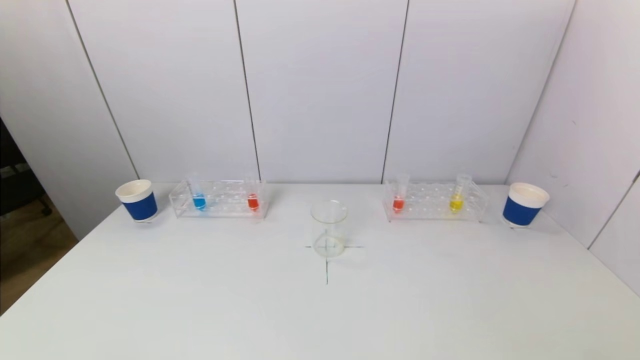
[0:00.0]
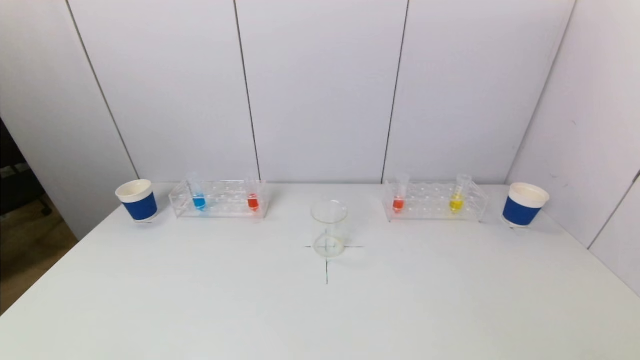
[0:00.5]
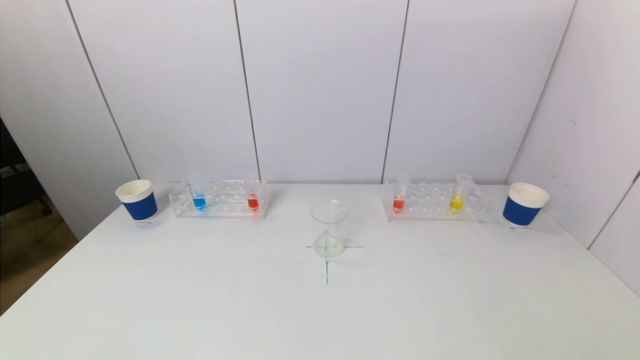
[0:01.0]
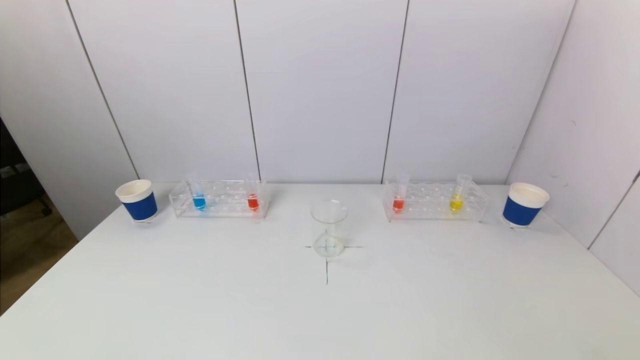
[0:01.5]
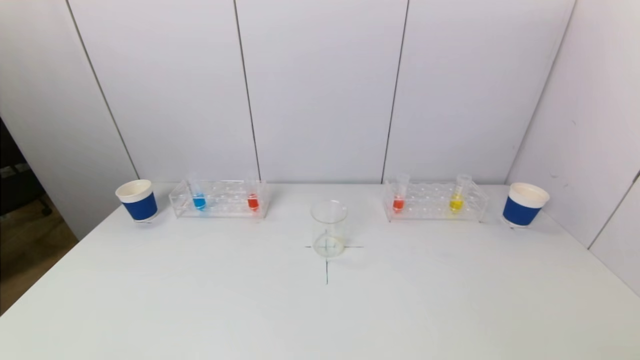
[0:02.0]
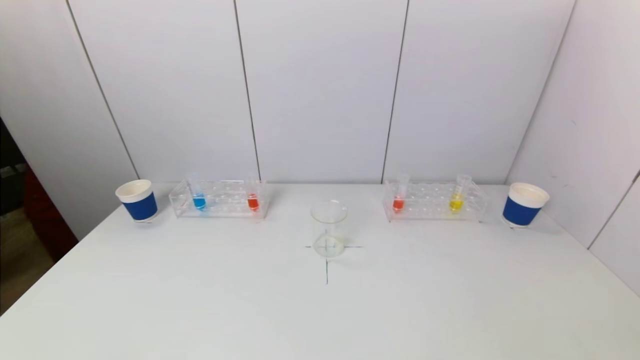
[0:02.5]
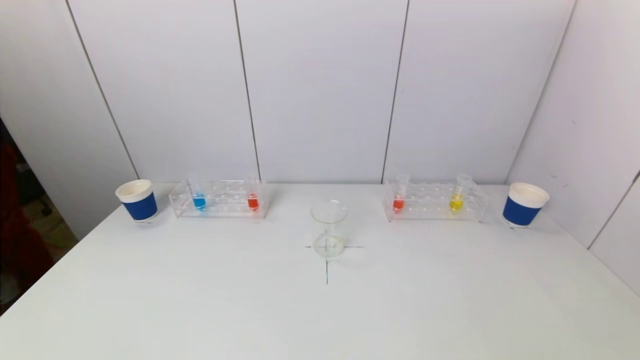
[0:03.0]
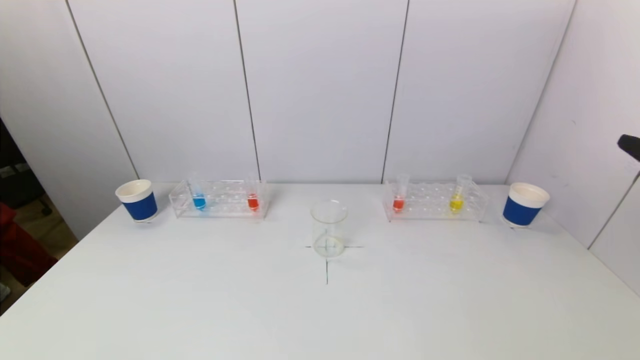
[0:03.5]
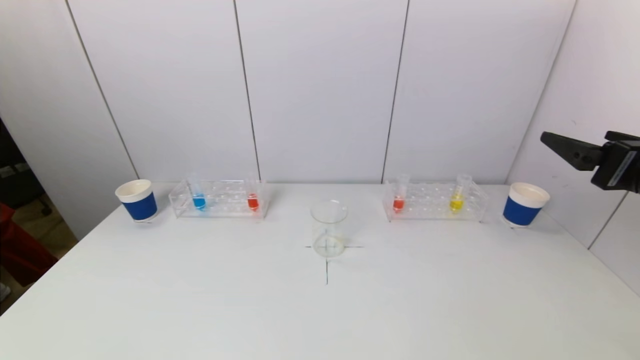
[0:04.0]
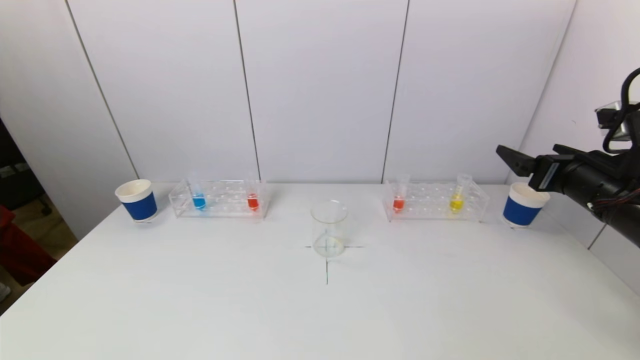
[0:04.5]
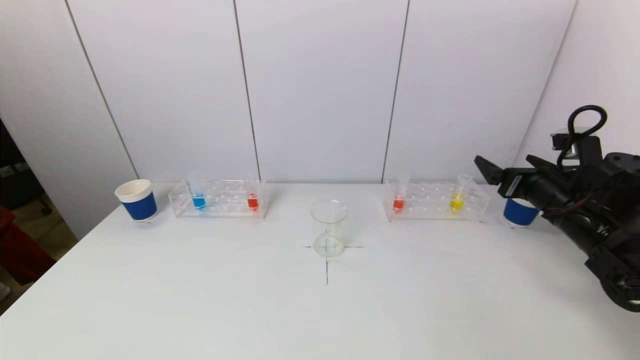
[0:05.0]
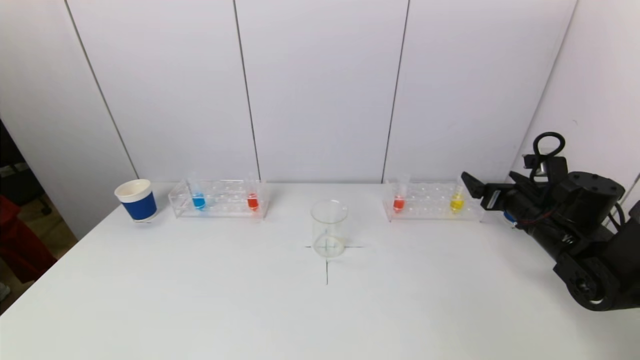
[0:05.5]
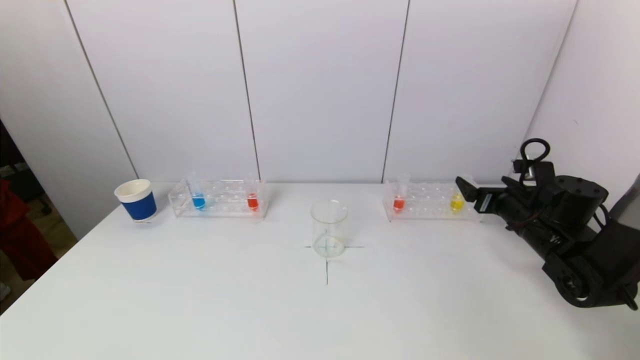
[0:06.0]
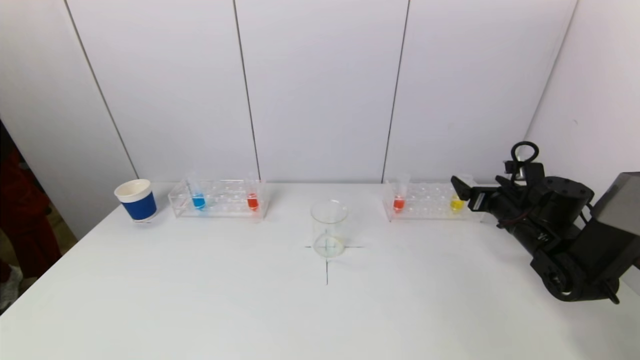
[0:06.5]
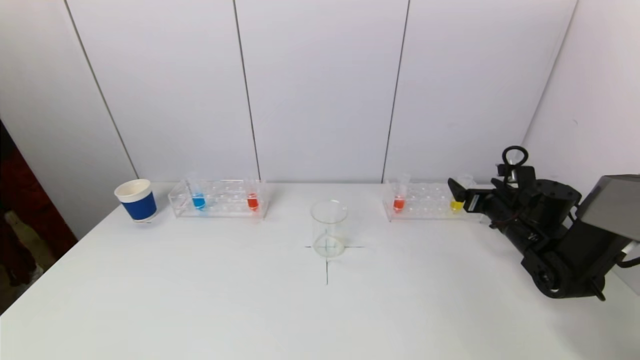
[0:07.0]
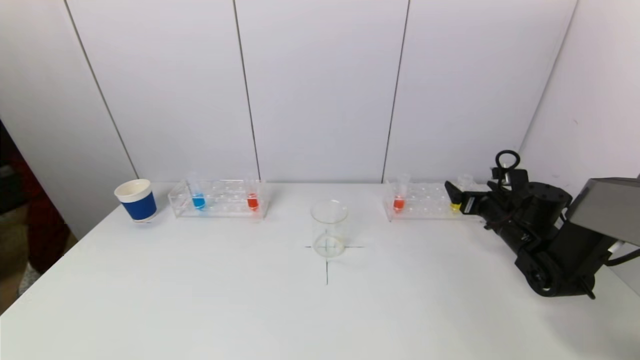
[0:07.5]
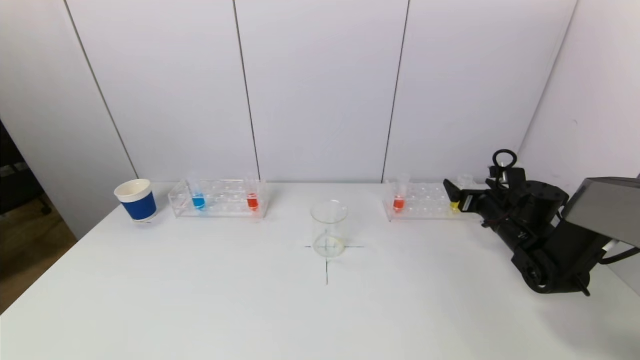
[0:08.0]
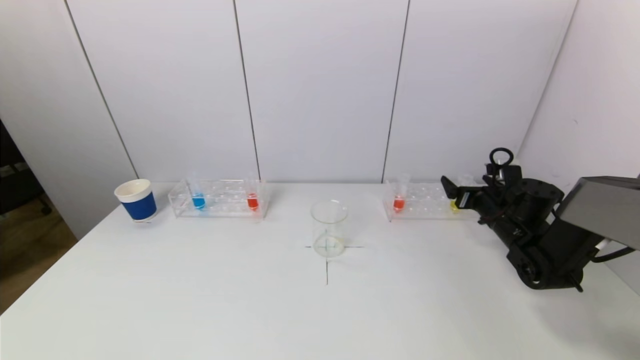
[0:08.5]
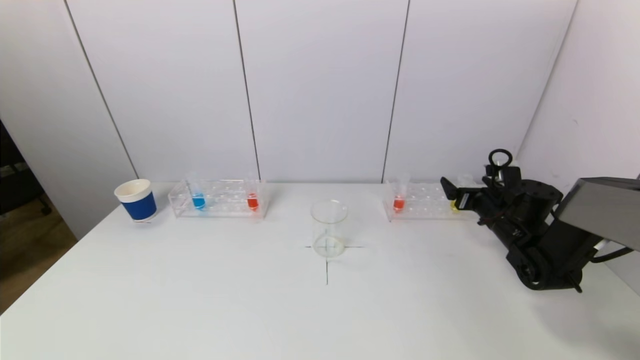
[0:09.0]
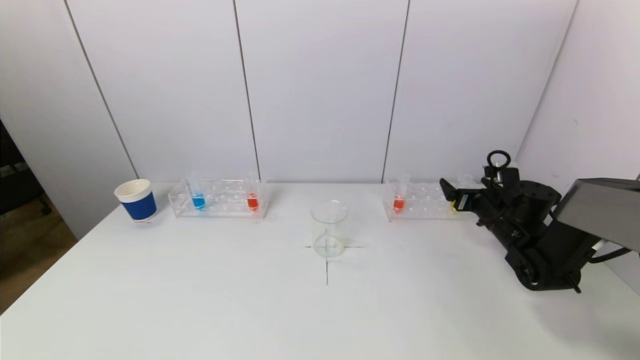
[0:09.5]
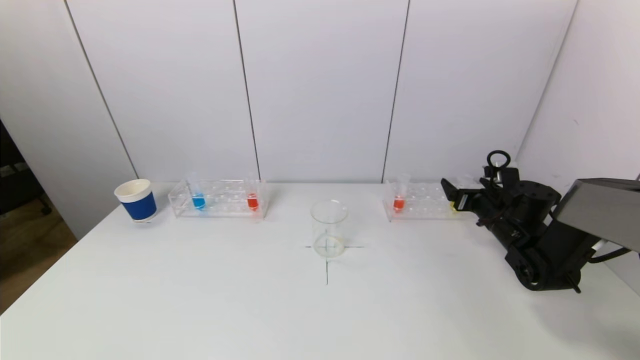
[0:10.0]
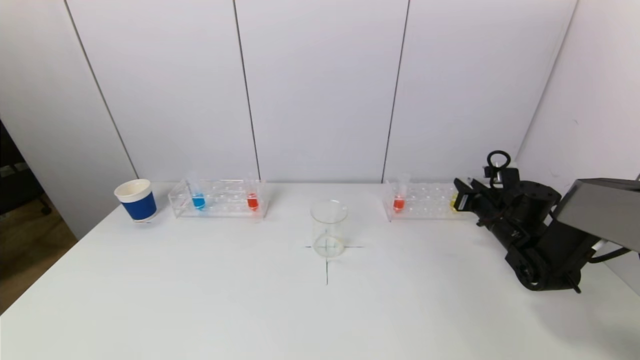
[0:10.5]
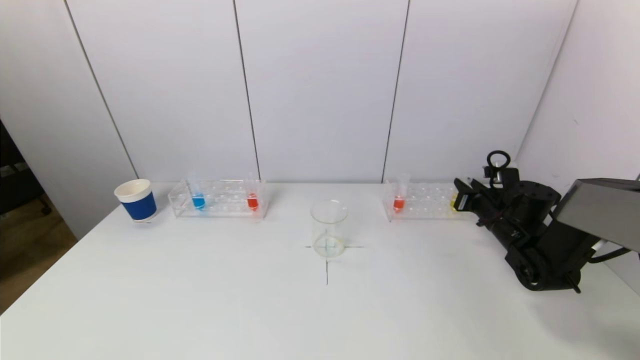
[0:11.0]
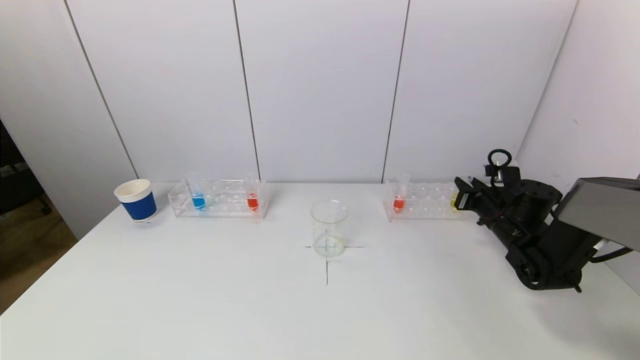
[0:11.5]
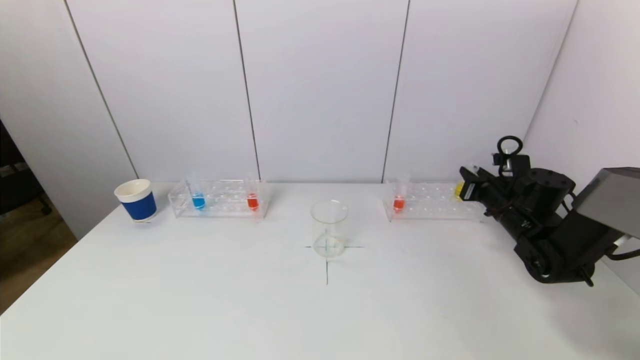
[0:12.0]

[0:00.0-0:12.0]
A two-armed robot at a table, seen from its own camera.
Task of the whole recording: pick up a test tube with pigment on left test tube rack and a test tube with pigment on right test tube rack by grippers and pour them into the beaker.
Step, 0:00.0 to 0:10.5: Grasp the yellow reagent with the right gripper.
0:02.0 to 0:04.0: The right gripper travels forward and upward by about 30 cm.
0:04.0 to 0:06.0: The right gripper heads downward and forward, covering approximately 20 cm.
0:06.0 to 0:08.0: The right gripper moves approximately 5 cm.
0:08.0 to 0:10.0: Both grippers stay about where they are.
0:10.0 to 0:12.0: The right gripper closes up.

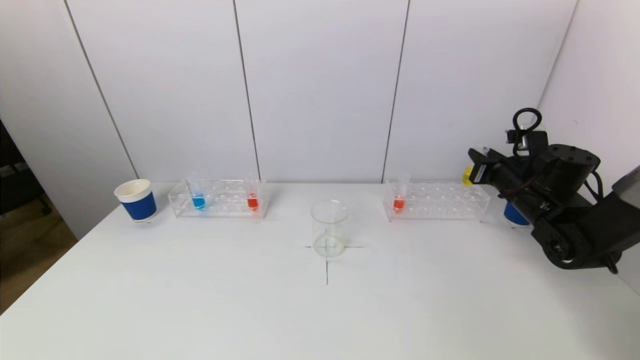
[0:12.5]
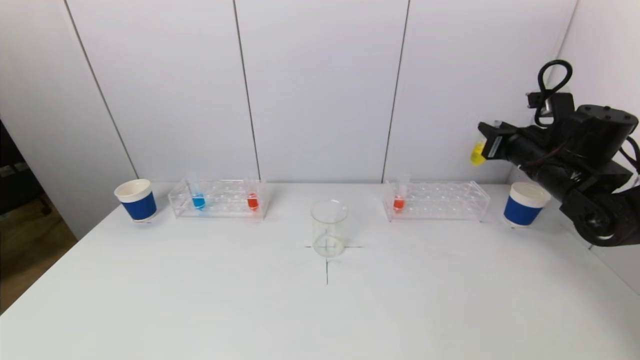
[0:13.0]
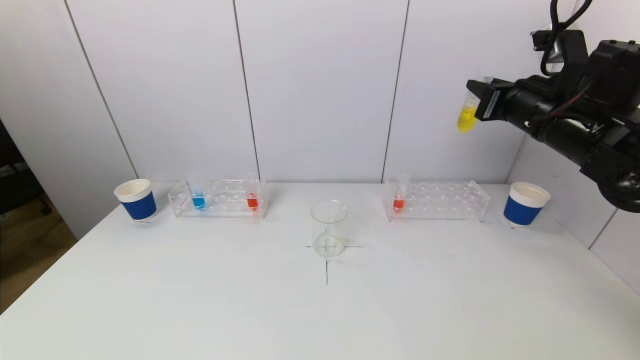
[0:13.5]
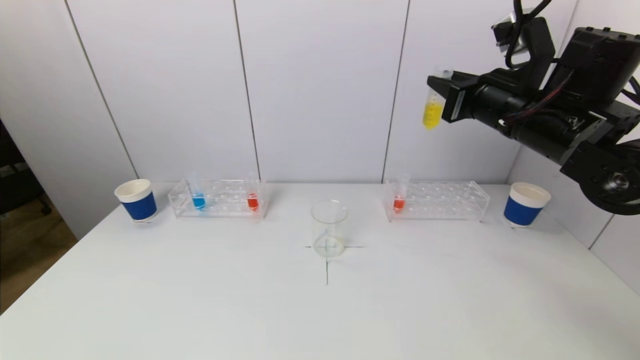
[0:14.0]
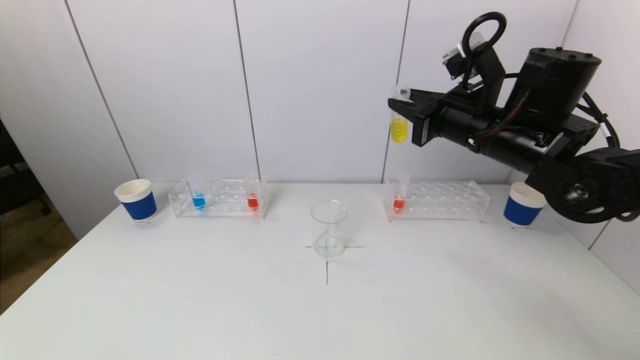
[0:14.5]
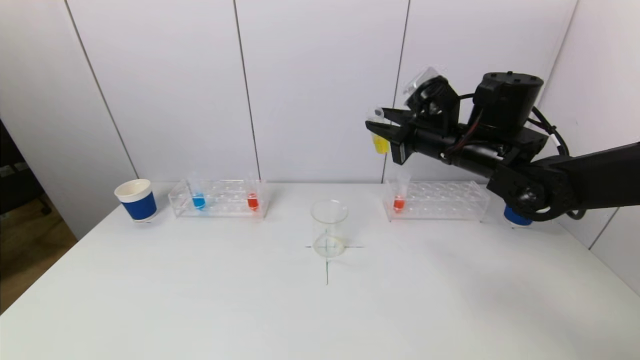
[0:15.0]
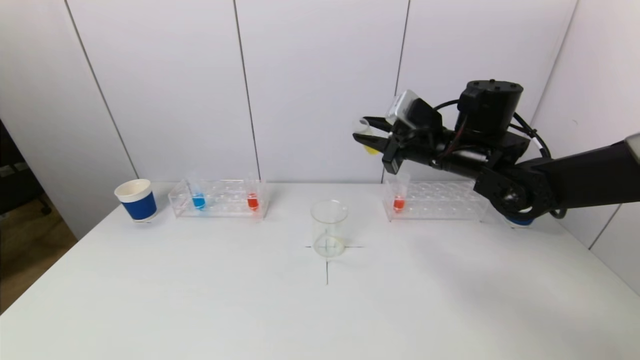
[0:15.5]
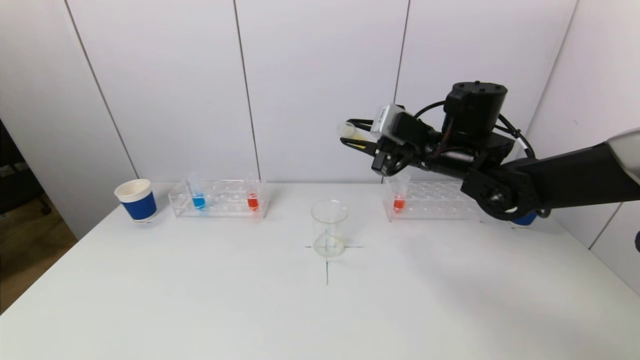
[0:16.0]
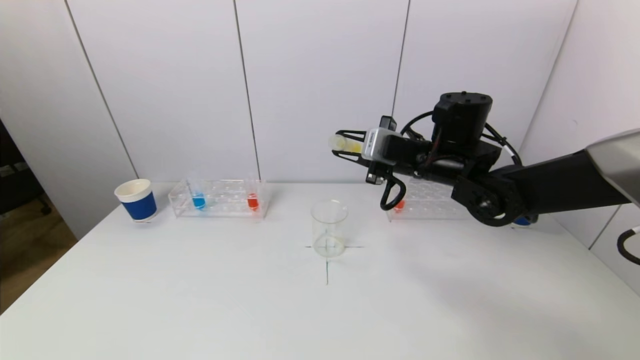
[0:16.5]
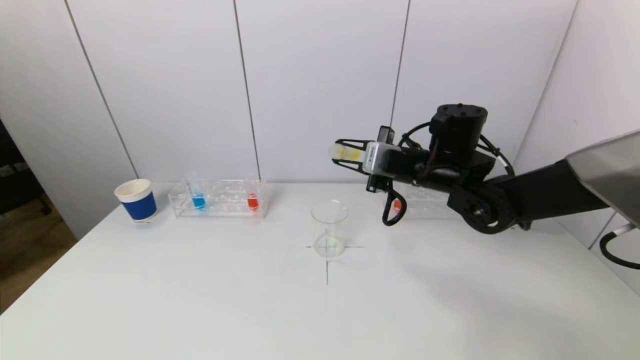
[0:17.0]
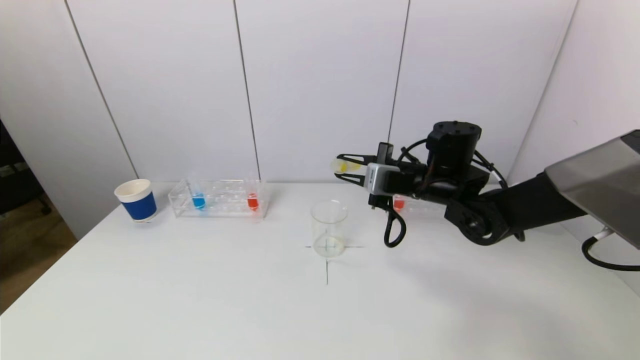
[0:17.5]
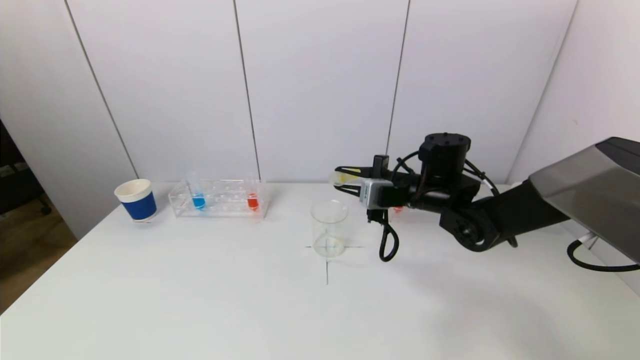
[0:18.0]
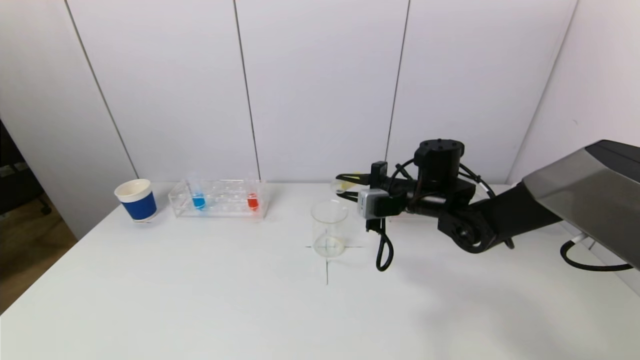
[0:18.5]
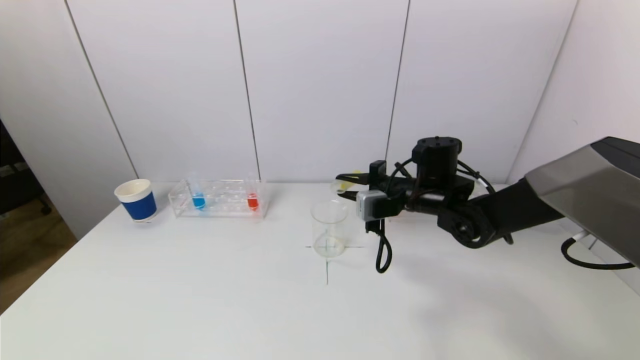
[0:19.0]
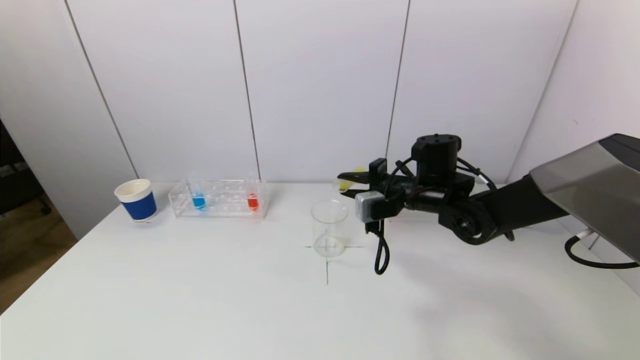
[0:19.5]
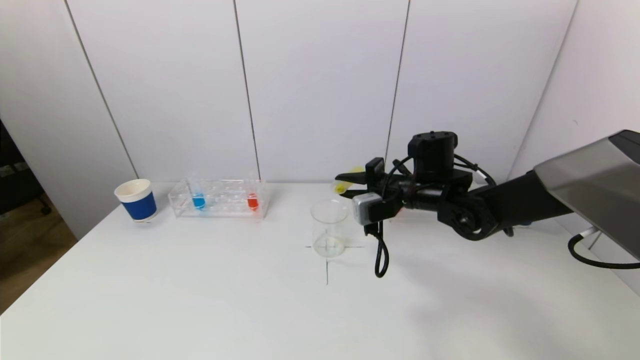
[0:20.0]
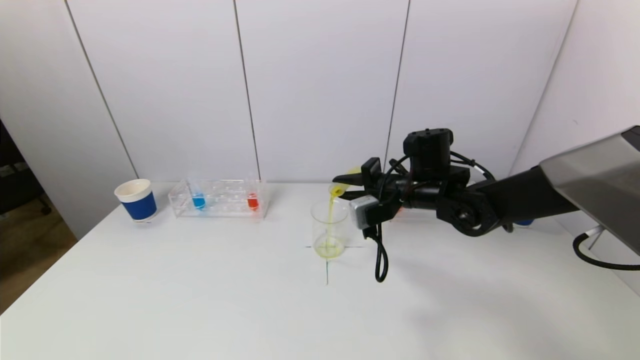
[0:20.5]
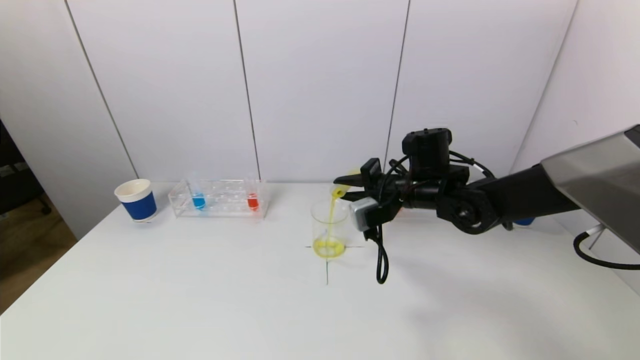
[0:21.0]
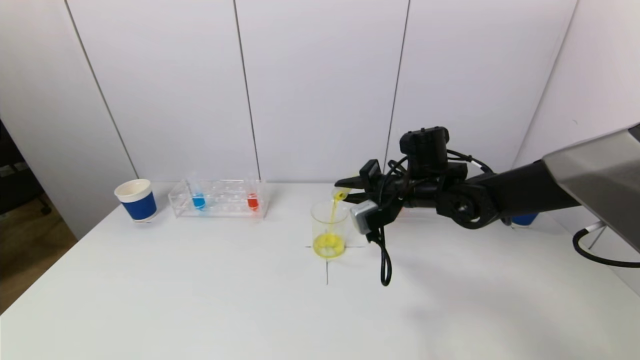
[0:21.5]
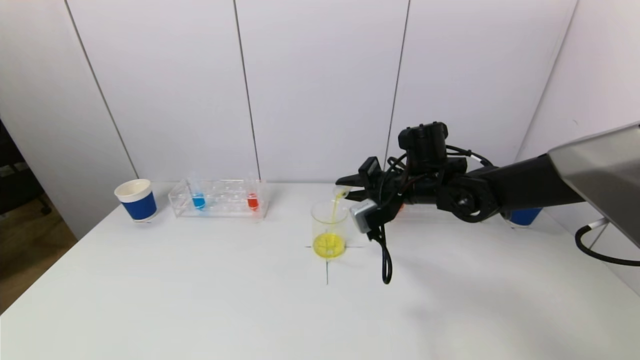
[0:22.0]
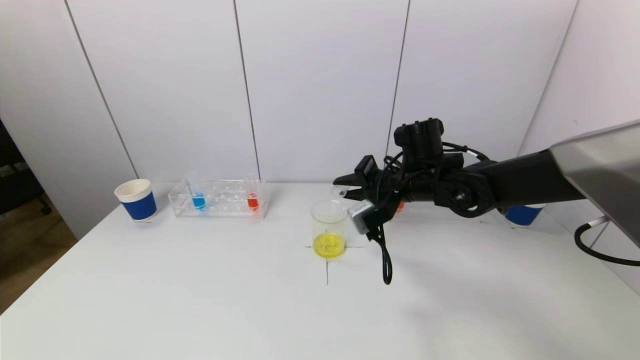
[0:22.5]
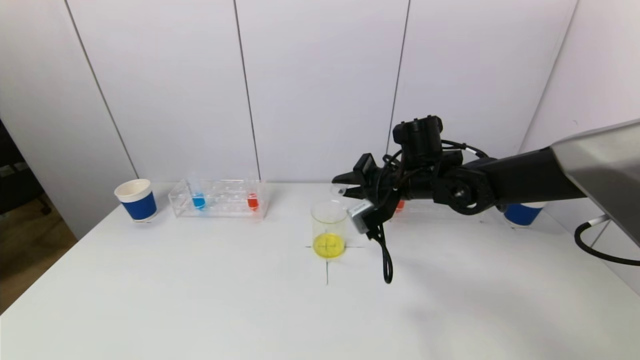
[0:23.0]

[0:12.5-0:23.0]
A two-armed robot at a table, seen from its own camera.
Task of the whole recording: pick up a test tube with pigment on left test tube rack and a test tube with pigment on right test tube rack by grippers and pour them into the beaker.
Step, 0:12.5 to 0:22.5: Pour the yellow reagent into the graduated cylinder with the right gripper.
0:12.5 to 0:14.5: The right gripper is displaced to the left and upward by about 20 cm.
0:14.5 to 0:16.5: The right gripper shifts approximately 10 cm downward and to the left.
0:16.5 to 0:19.0: The right gripper goes about 5 cm downward.
0:19.0 to 0:21.0: The grippers stay close to where they were, moving slightly.
0:21.0 to 0:23.0: The grippers make only small movements.
